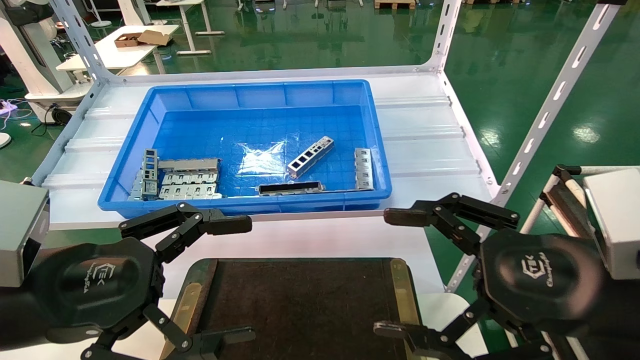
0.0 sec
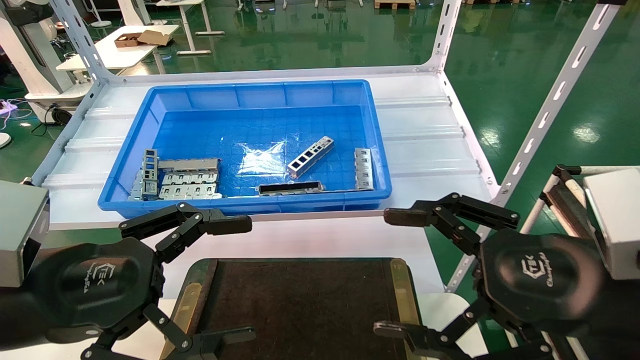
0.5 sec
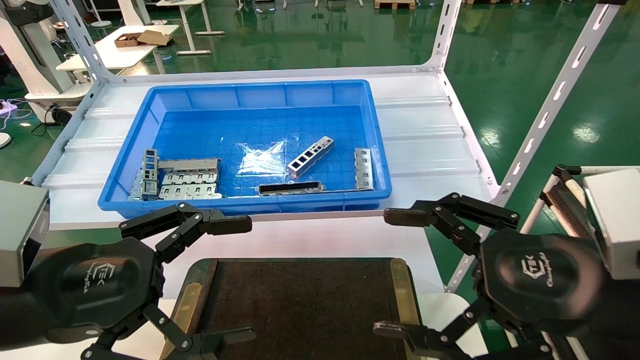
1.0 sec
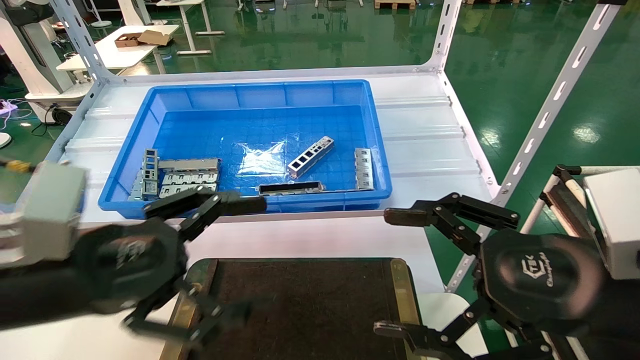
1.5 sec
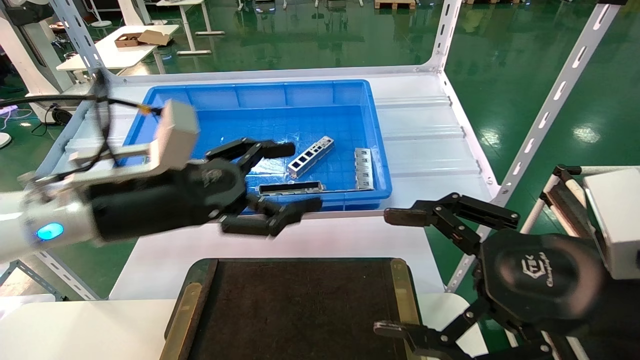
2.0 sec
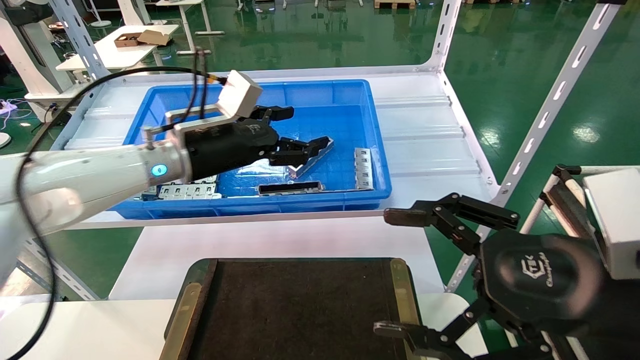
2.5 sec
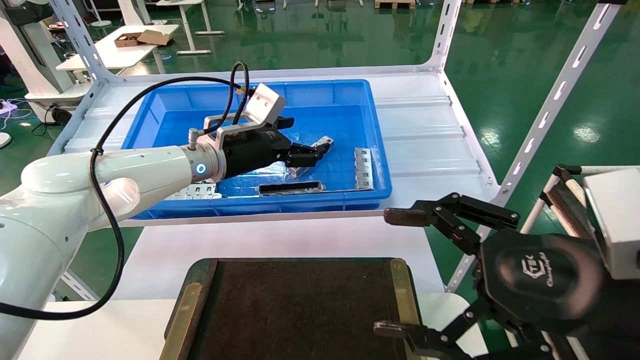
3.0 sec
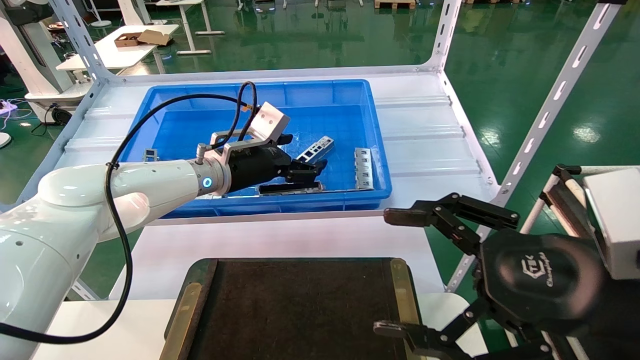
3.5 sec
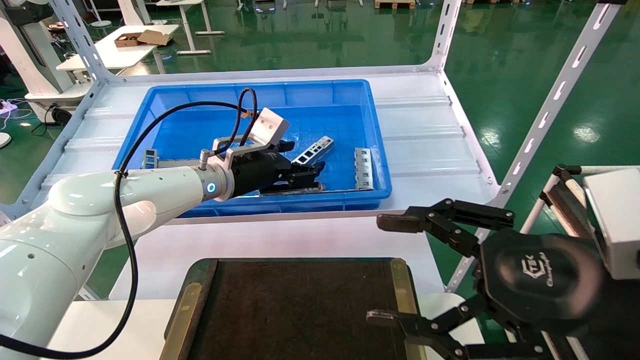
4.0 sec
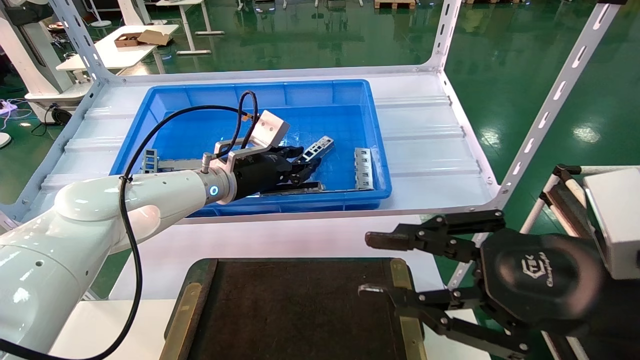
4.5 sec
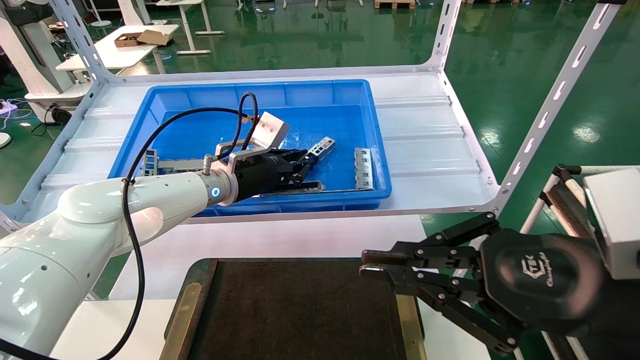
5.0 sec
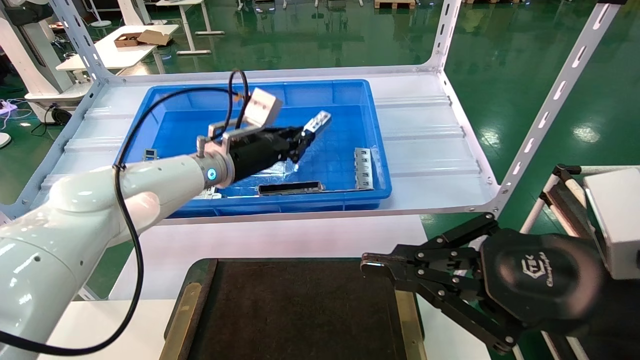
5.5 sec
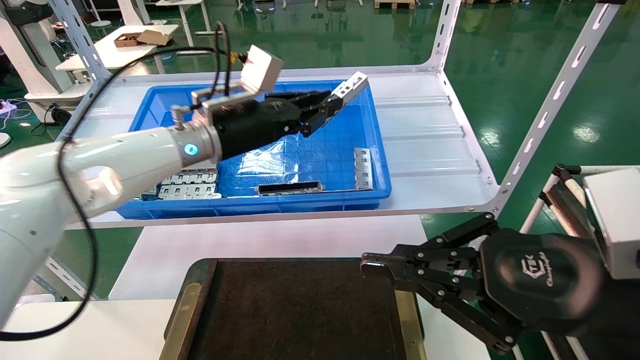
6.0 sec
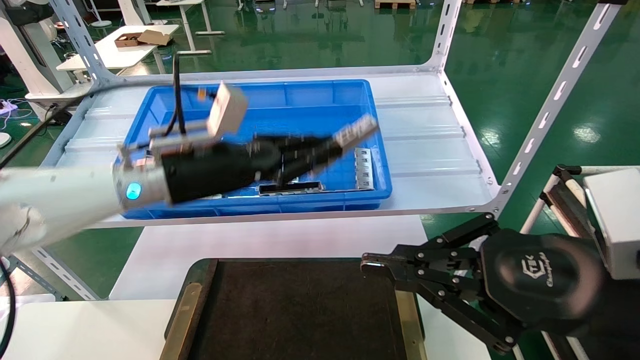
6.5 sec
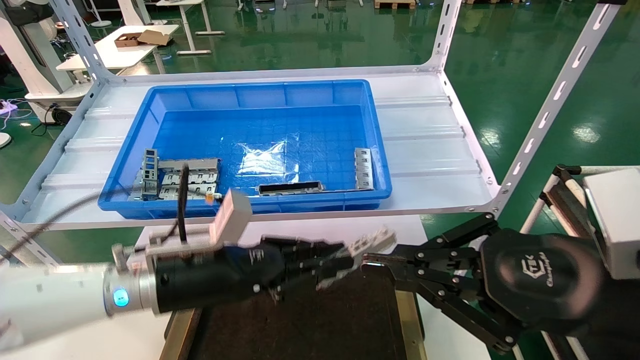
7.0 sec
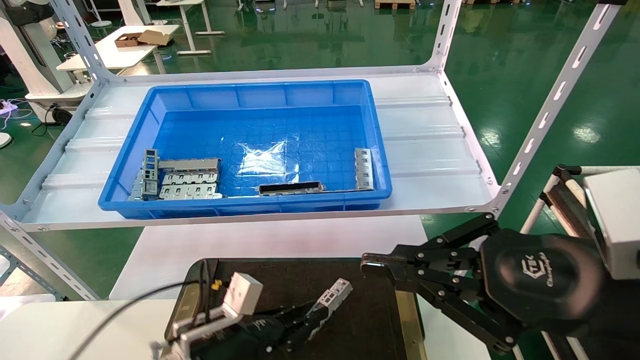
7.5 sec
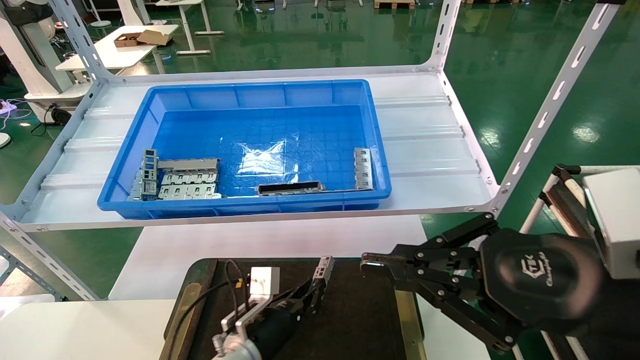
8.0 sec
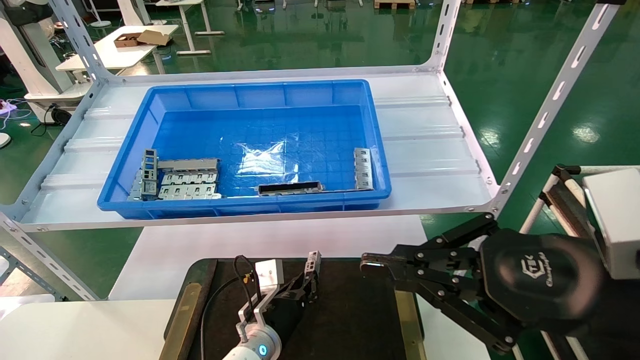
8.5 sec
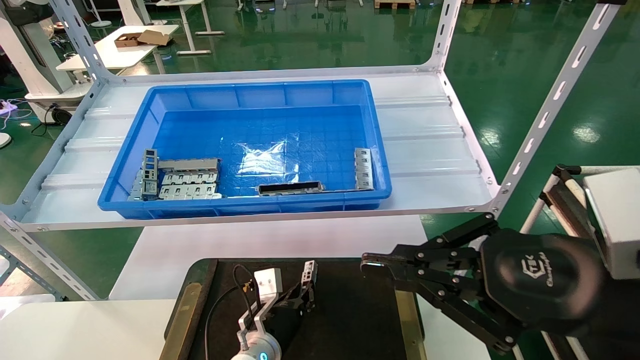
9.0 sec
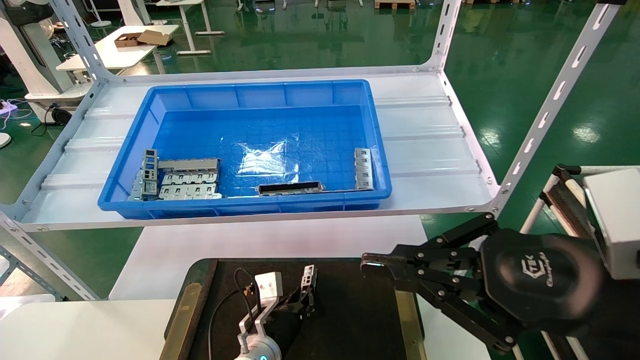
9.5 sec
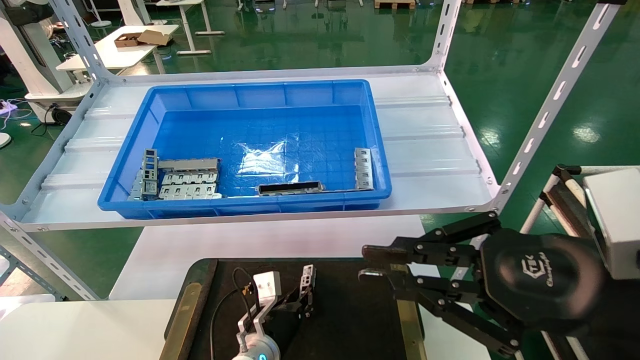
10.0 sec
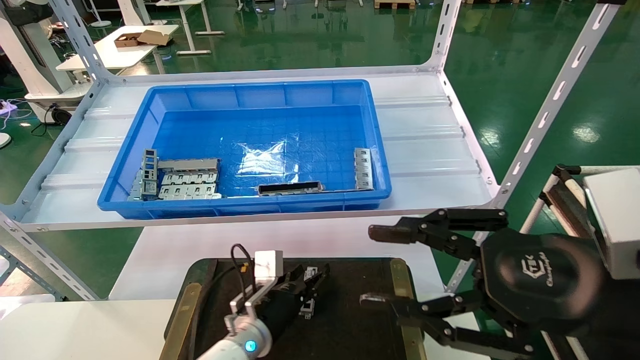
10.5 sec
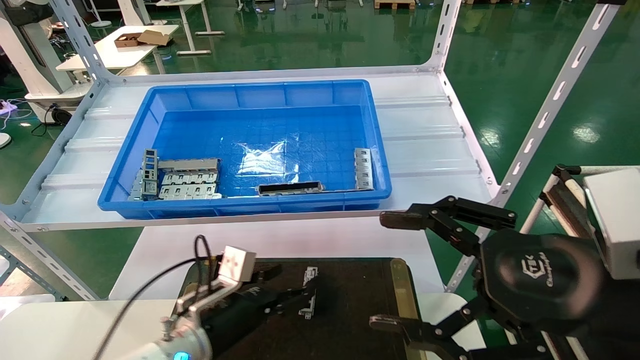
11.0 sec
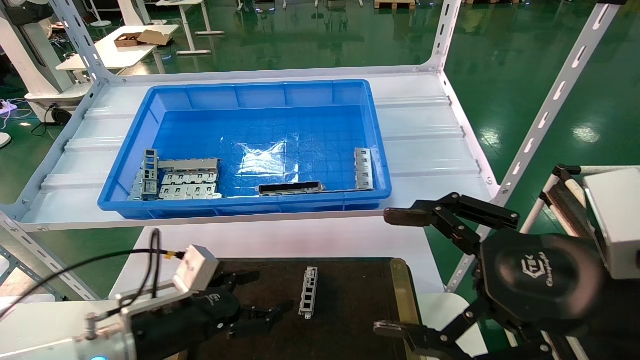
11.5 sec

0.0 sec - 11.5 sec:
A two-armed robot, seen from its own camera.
Task of the whole recording: Grasp the part with one hand and place it on the black container.
Step, 2.0 sec - 5.5 sec: Pick up the front USB bracket from the feeding area.
Step, 6.0 sec - 10.5 sec: Place the front USB bracket into the box.
0.0 sec - 2.0 sec: The left gripper moves forward and to the right, roughly 15 cm.
2.0 sec - 4.0 sec: The left gripper heads forward, covering about 15 cm.
4.0 sec - 6.0 sec: The right gripper closes up, while the left gripper shifts some 5 cm upward, and closes up.
6.0 sec - 7.5 sec: The left gripper travels downward by about 30 cm.
7.5 sec - 9.5 sec: The left gripper heads downward, forward and to the right, covering some 15 cm.
9.5 sec - 11.5 sec: The right gripper opens up. The left gripper travels to the left, upward and backward by roughly 20 cm, and opens.

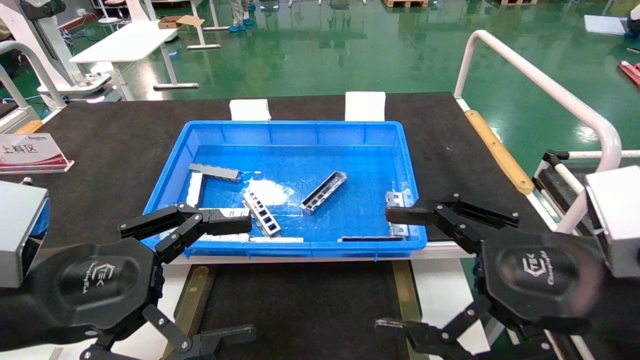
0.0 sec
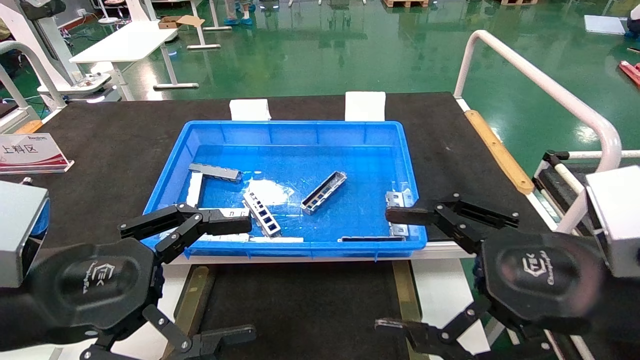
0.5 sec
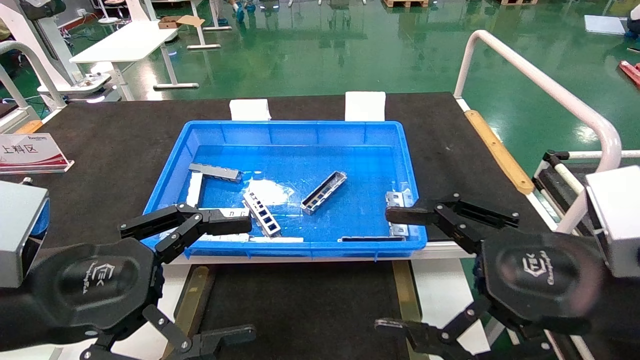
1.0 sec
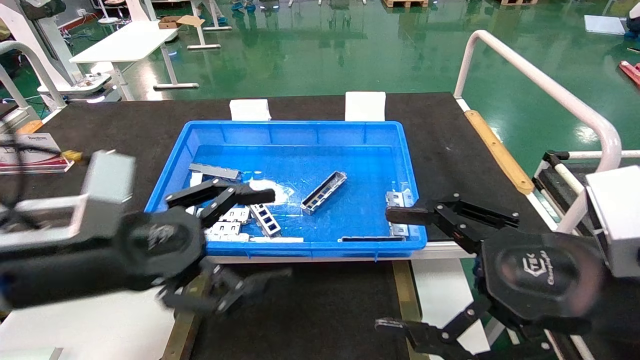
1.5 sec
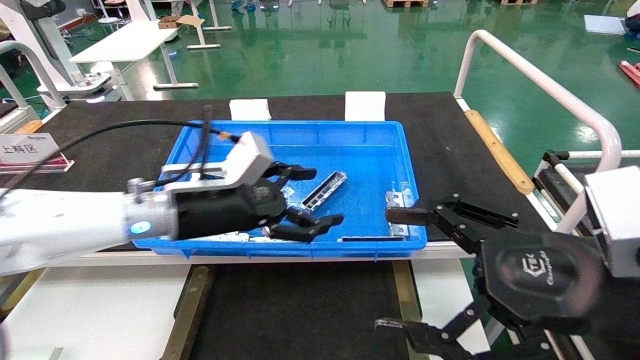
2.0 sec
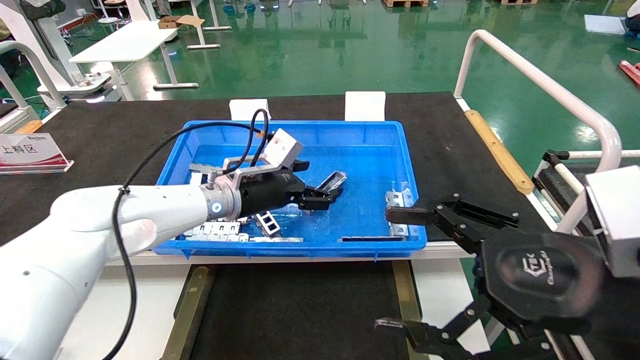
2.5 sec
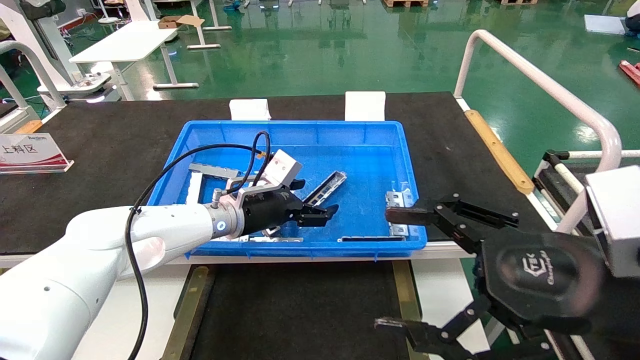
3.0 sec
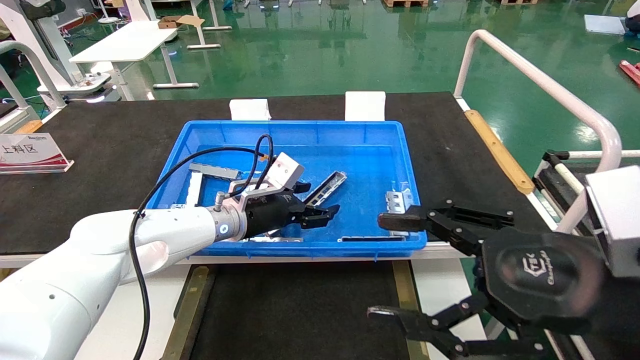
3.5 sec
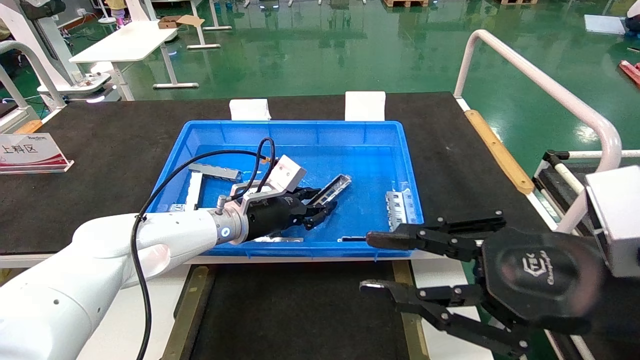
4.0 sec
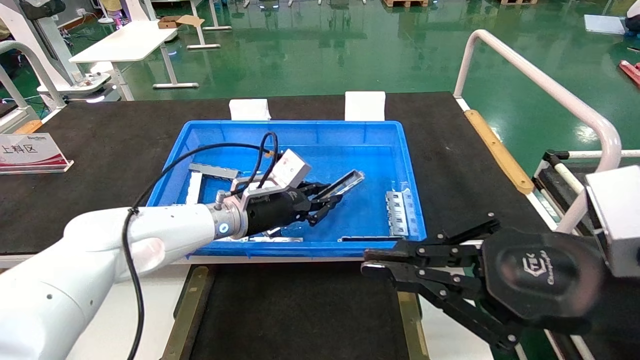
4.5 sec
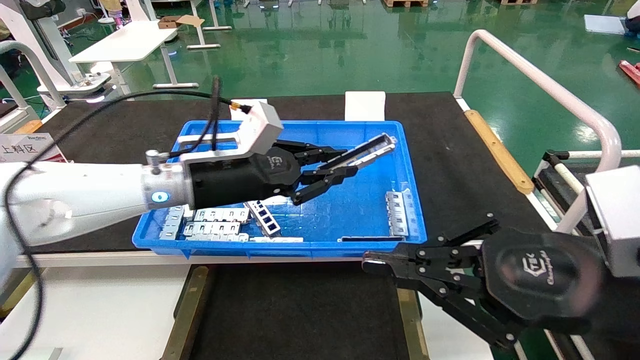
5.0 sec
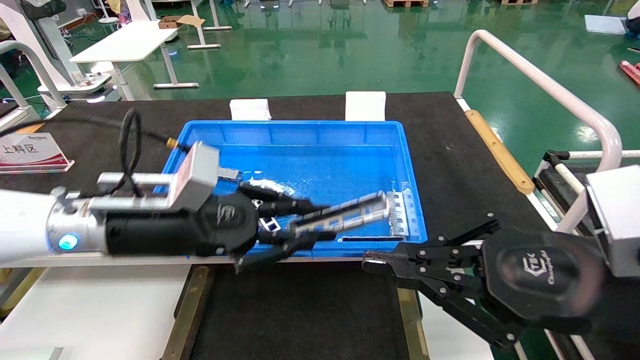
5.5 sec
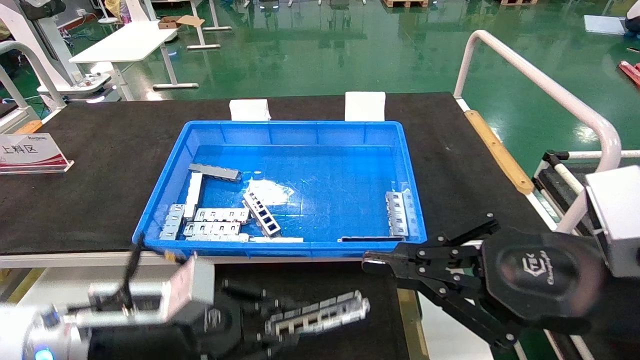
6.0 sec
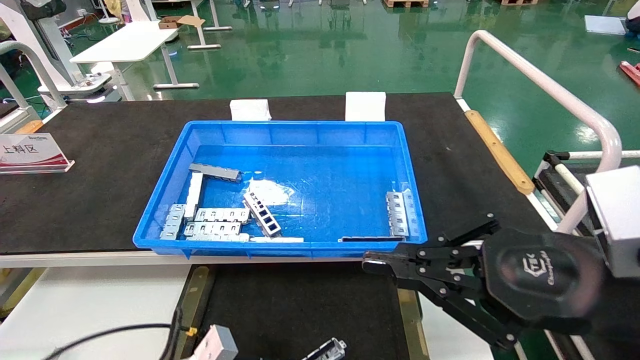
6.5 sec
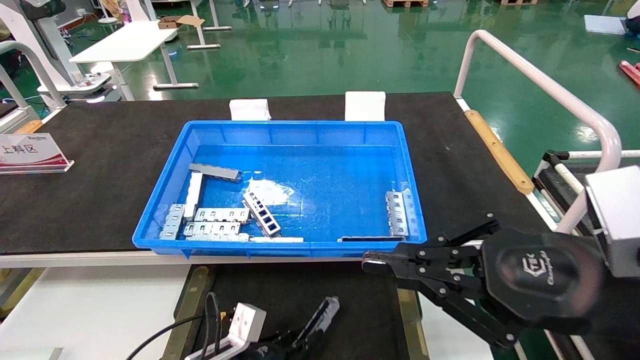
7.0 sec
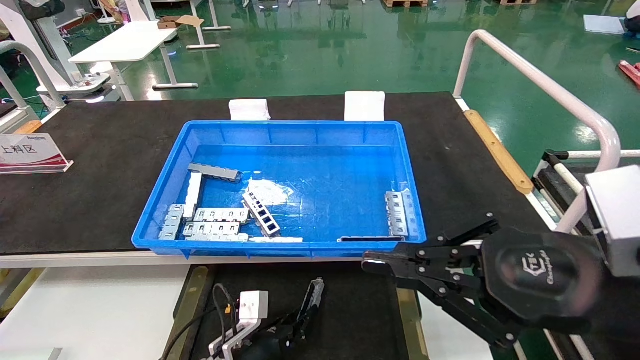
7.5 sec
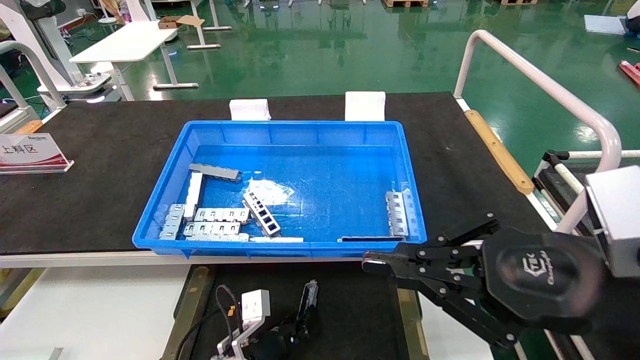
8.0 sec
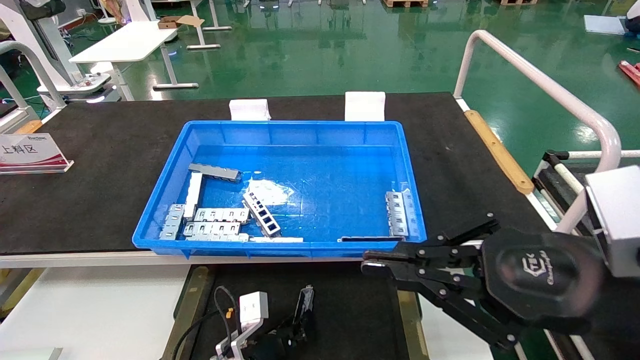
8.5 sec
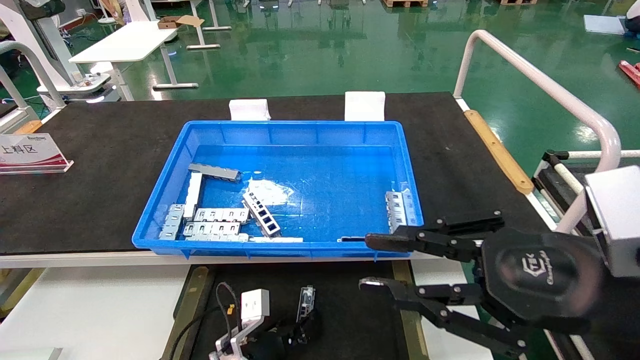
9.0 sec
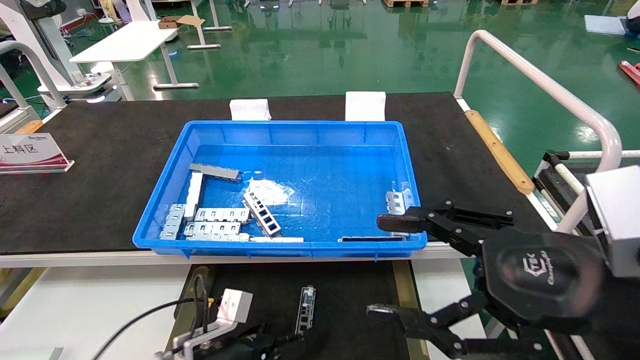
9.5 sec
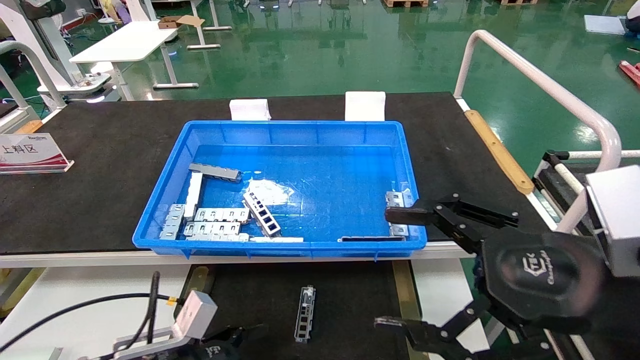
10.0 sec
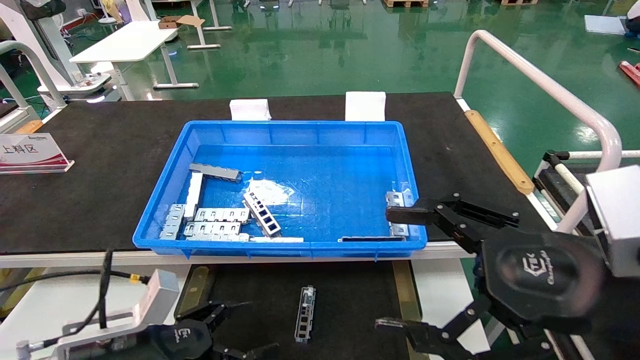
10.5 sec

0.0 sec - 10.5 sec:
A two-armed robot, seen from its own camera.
Task of the whole recording: Grasp the part with one hand and place it on the black container.
Step, 1.5 sec - 4.0 sec: Pick up the front USB bracket from the feeding area.
Step, 4.5 sec - 8.5 sec: Place the front USB bracket into the box.
0.0 sec - 2.0 sec: The left gripper goes some 20 cm forward and to the right.
2.0 sec - 4.0 sec: The right gripper closes, while the left gripper goes approximately 15 cm forward and downward, and closes its fingers.
4.0 sec - 6.5 sec: The left gripper travels backward and downward by approximately 25 cm, and closes its fingers, while the right gripper closes.
6.5 sec - 8.5 sec: The left gripper goes approximately 15 cm to the right, forward and downward.
8.5 sec - 10.5 sec: The left gripper is displaced to the left, upward and backward by some 25 cm, and opens its fingers. Meanwhile the right gripper opens.
